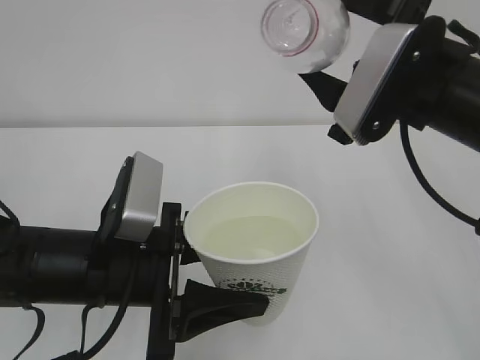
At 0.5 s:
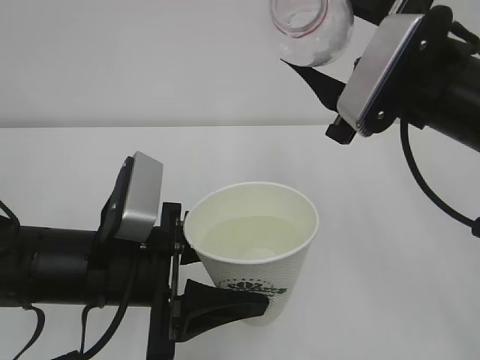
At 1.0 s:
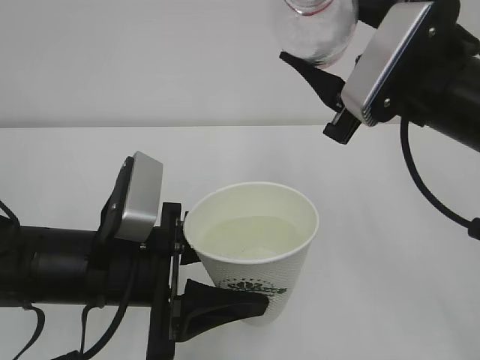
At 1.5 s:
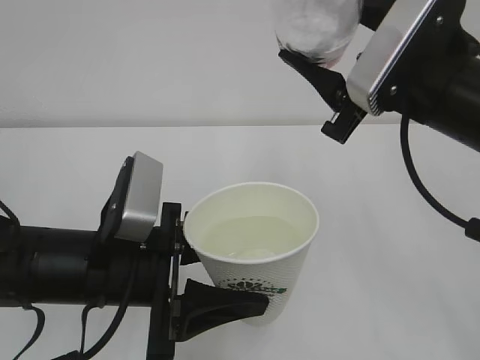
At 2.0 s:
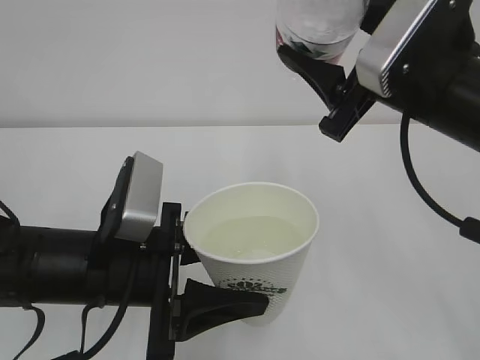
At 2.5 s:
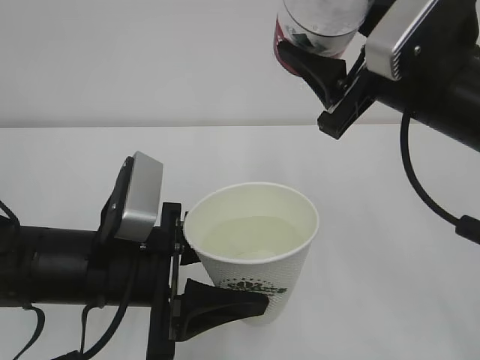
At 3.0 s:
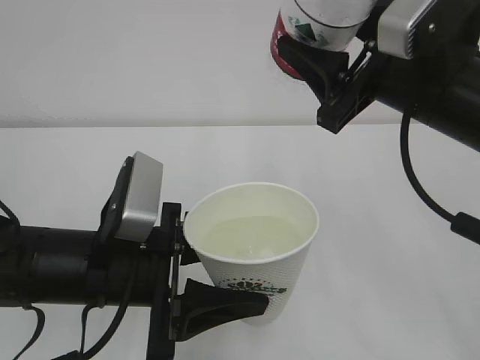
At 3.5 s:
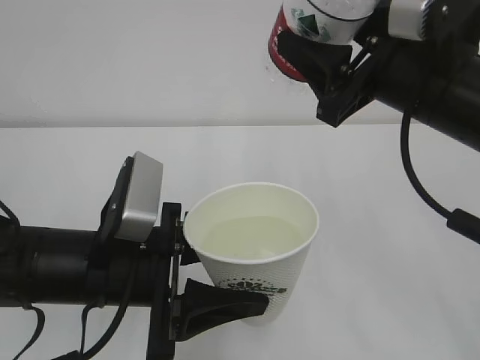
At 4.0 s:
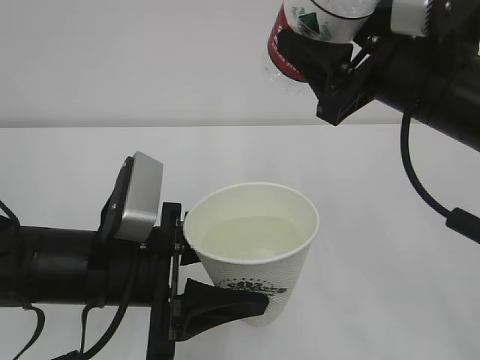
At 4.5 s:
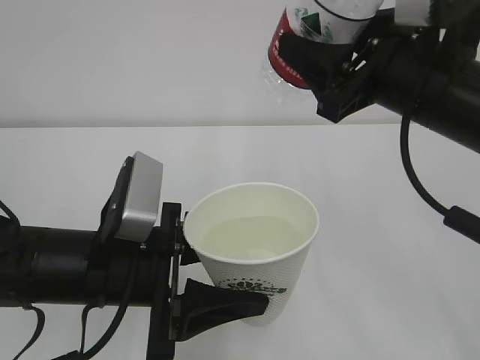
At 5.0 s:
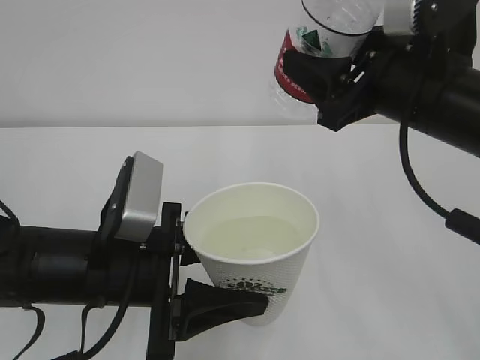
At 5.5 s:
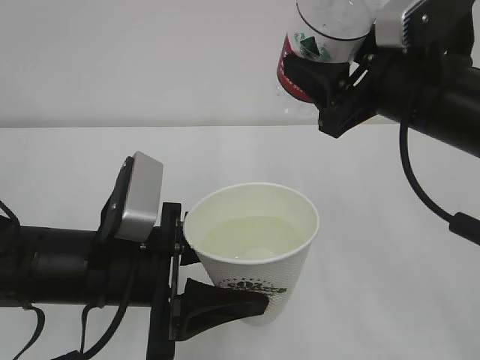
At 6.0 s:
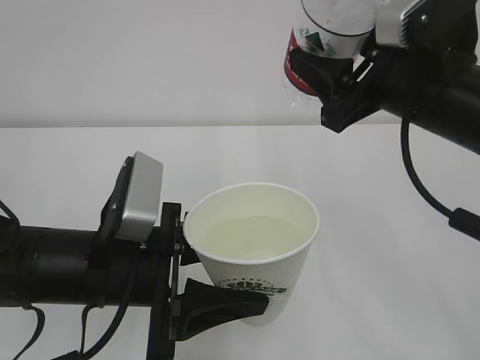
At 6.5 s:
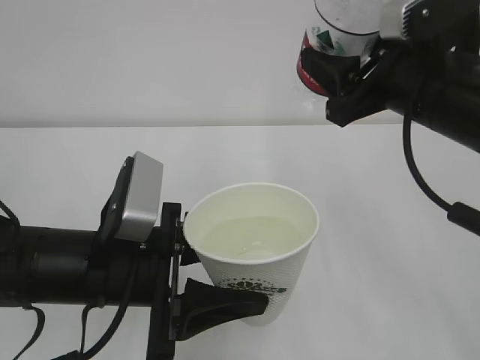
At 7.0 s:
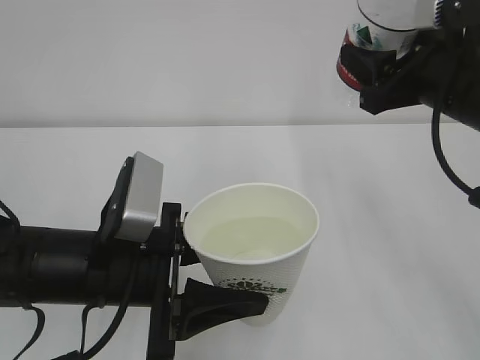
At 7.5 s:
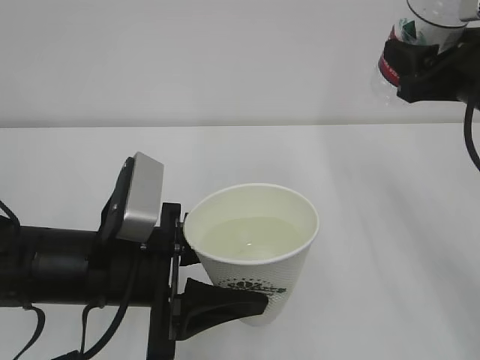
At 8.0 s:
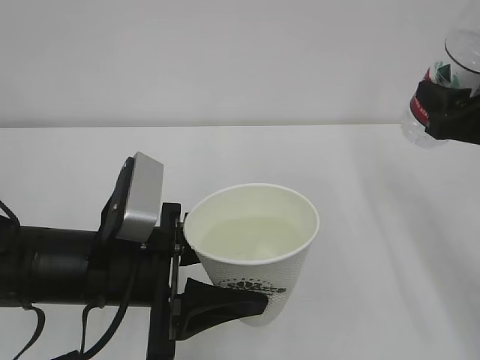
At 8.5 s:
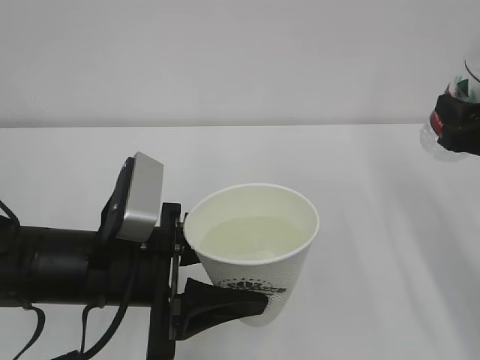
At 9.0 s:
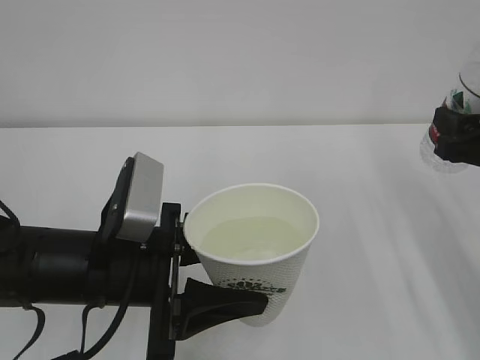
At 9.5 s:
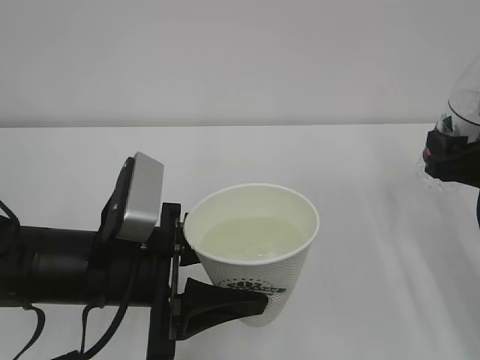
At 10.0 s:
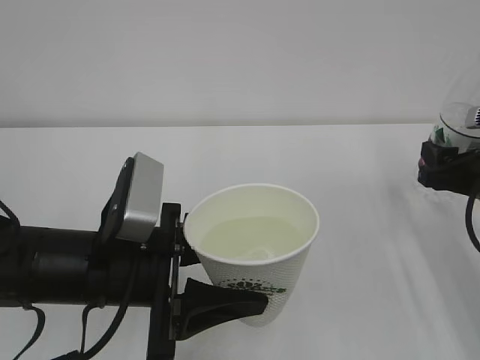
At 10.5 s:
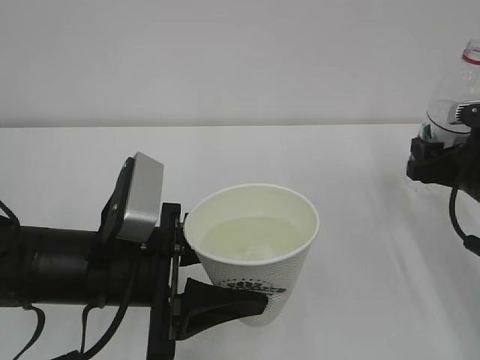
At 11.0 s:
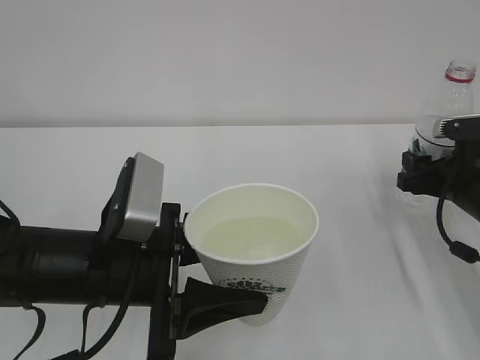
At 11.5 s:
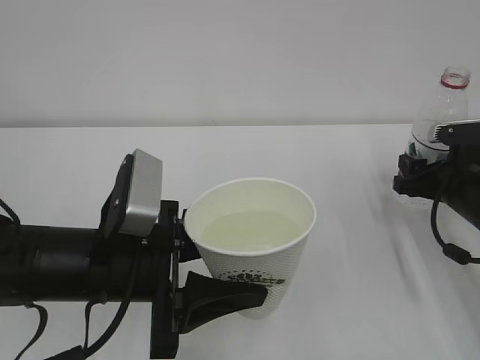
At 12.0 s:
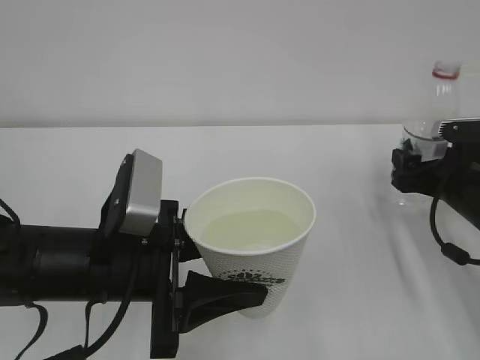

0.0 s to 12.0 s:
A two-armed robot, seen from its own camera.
4.0 to 6.0 s: The grippers stay close to where they were, moving slightly.
6.0 to 8.0 s: The right gripper travels to the right by approximately 10 cm.
8.0 to 10.0 s: The right gripper goes roughly 5 cm downward.
10.0 to 12.0 s: The right gripper shifts by about 5 cm, and opens its fingers.

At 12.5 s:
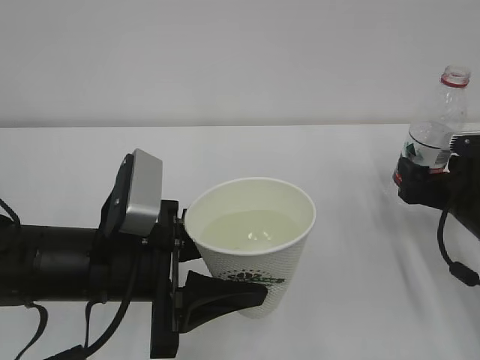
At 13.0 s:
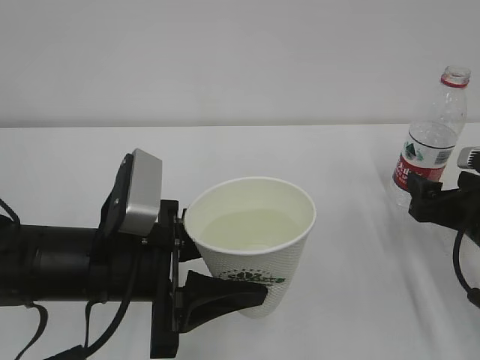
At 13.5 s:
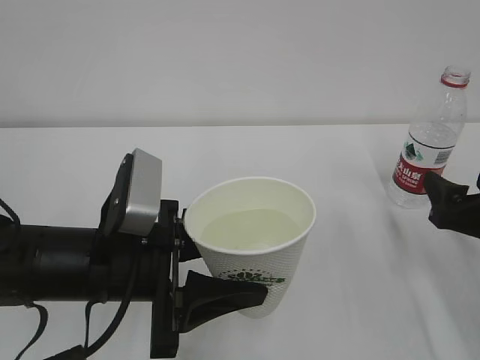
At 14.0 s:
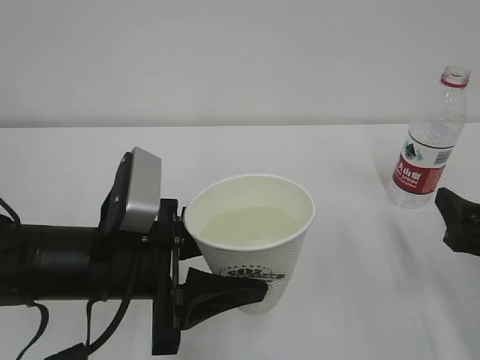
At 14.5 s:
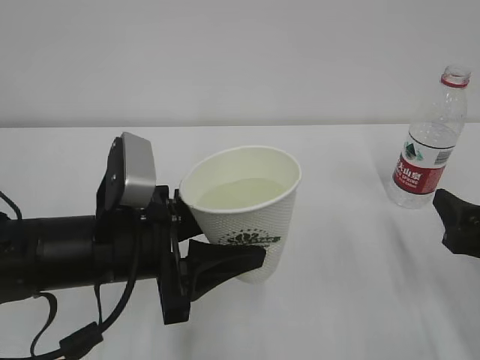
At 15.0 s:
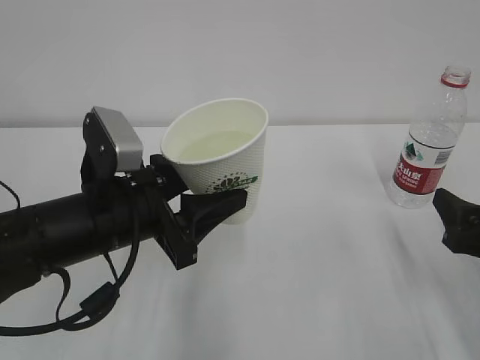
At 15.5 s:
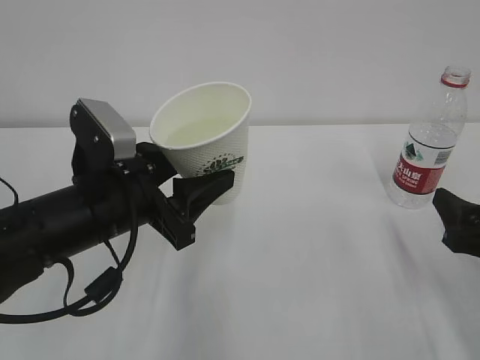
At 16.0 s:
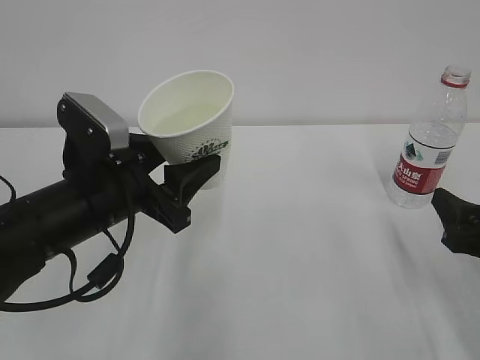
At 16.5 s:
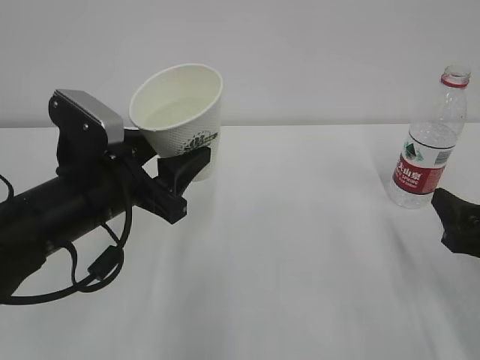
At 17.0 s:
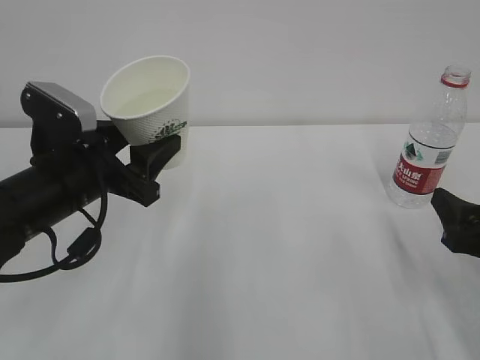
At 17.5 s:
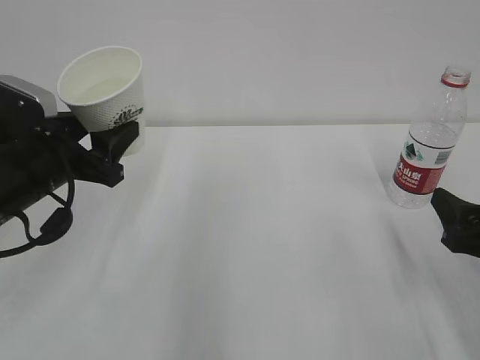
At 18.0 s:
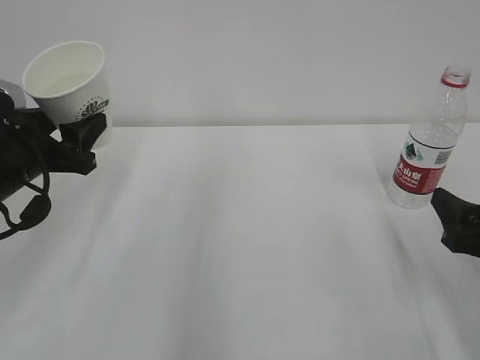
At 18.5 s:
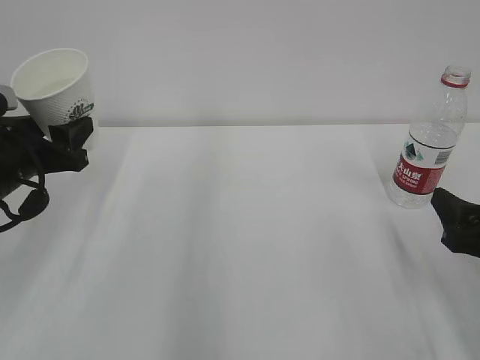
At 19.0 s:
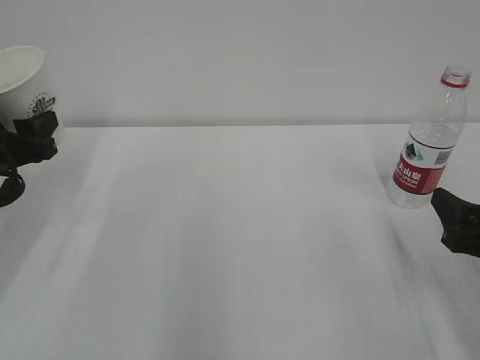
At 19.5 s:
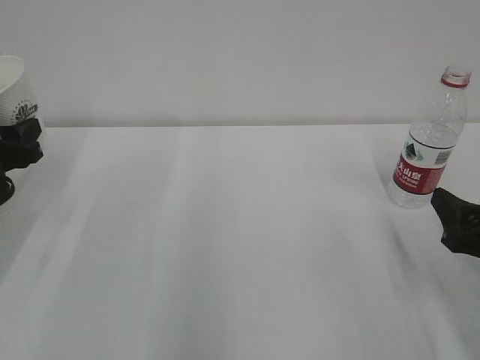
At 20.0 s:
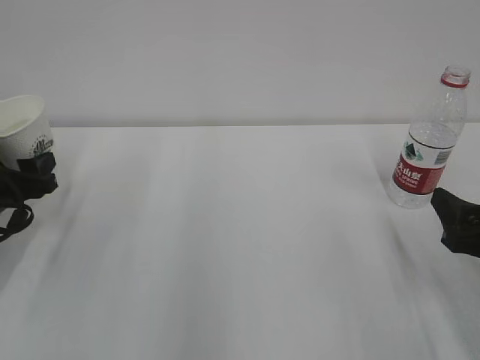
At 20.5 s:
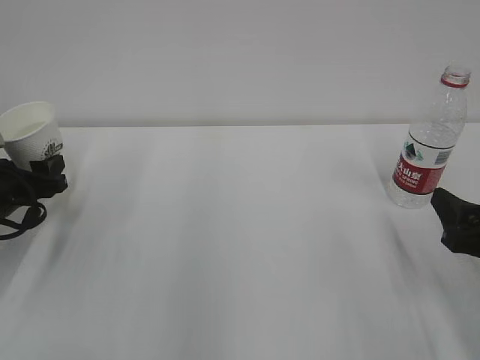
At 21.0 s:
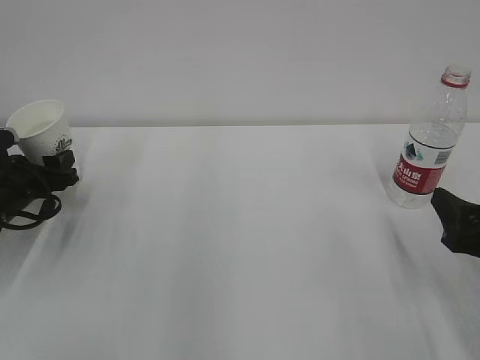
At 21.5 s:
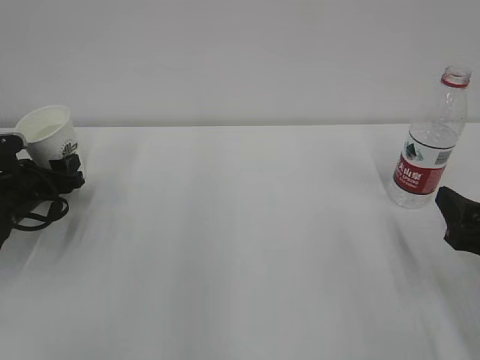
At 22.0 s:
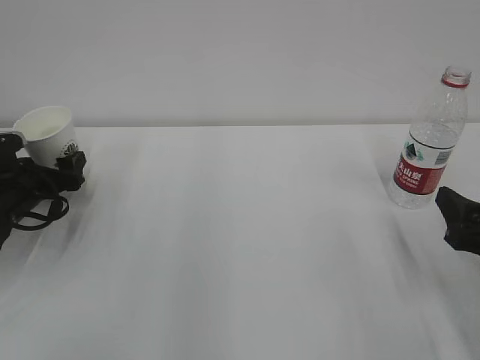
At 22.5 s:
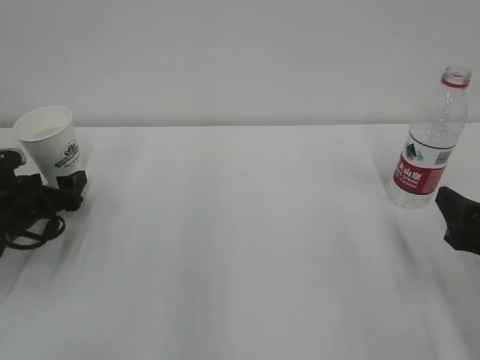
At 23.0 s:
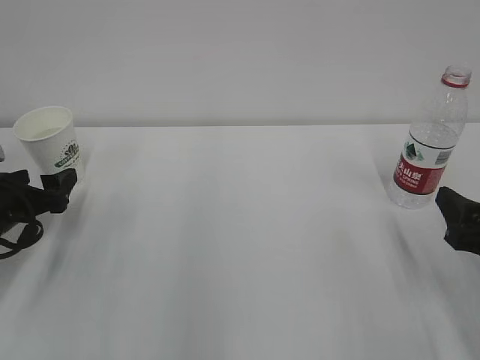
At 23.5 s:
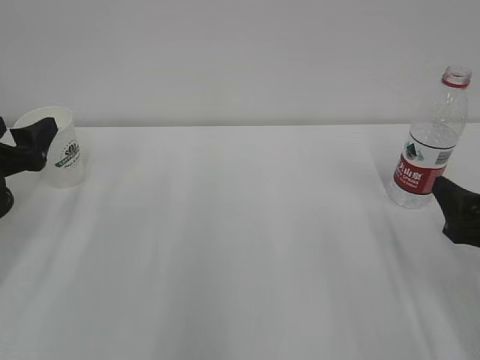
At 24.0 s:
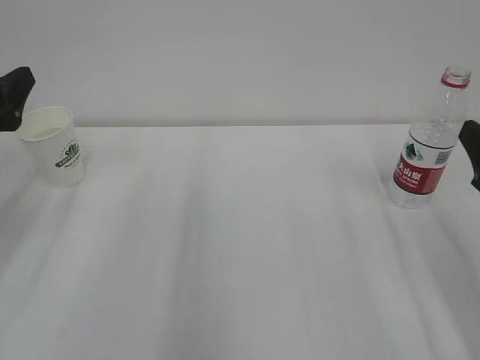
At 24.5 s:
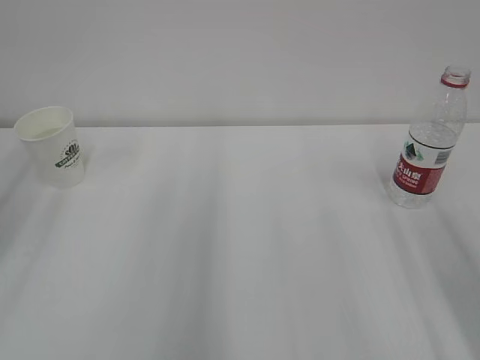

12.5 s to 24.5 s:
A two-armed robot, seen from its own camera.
12.5 to 14.5 s: The right gripper shifts approximately 10 cm backward.
14.5 to 16.5 s: The left gripper changes place by about 5 cm.
16.5 to 18.5 s: The left gripper travels to the left by roughly 10 cm.
18.5 to 20.5 s: The left gripper shifts approximately 10 cm downward and to the left.
20.5 to 22.5 s: The left gripper opens its fingers.
22.5 to 24.5 s: The left gripper travels upward and backward by roughly 25 cm, while the right gripper moves upward, some 10 cm.

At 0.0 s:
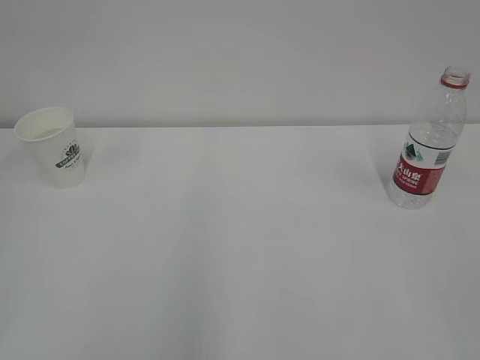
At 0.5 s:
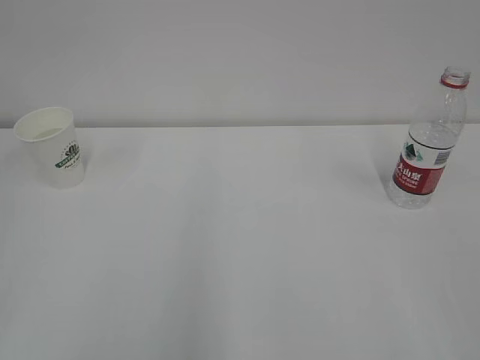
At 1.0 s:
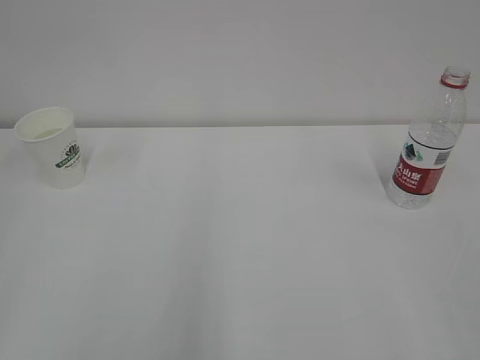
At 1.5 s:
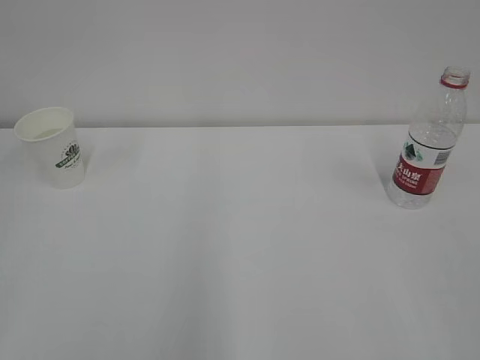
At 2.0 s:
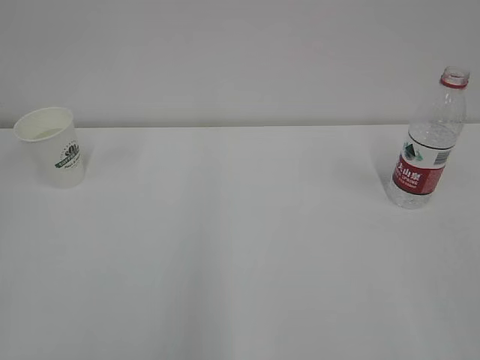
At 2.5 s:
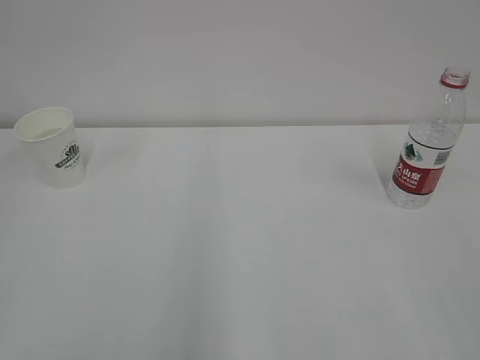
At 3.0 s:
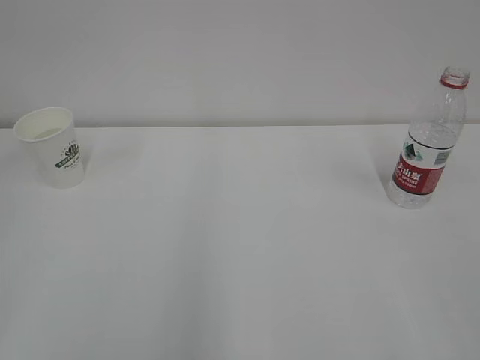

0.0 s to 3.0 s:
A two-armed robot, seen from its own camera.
0.0 to 3.0 s: Both grippers stay put.
